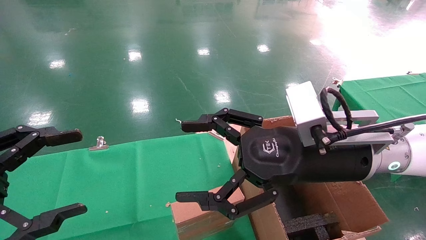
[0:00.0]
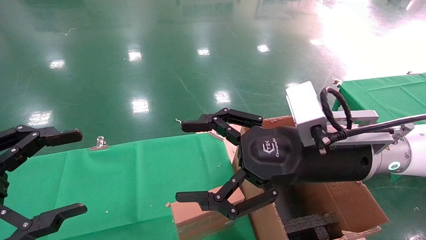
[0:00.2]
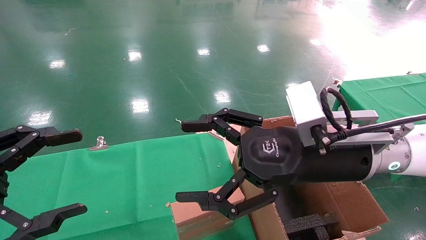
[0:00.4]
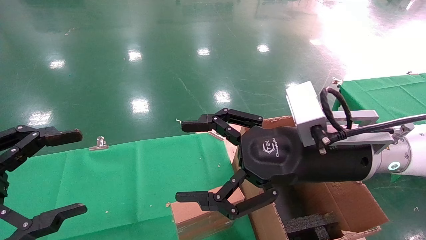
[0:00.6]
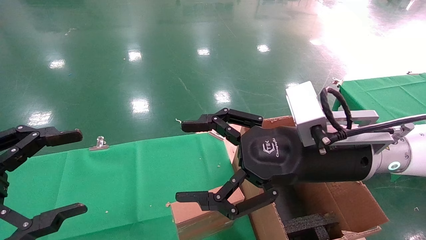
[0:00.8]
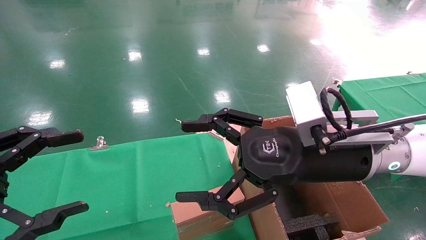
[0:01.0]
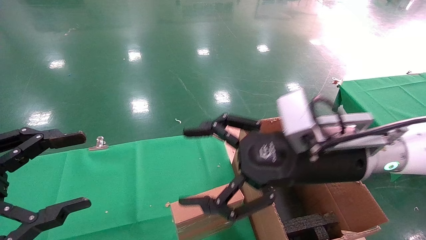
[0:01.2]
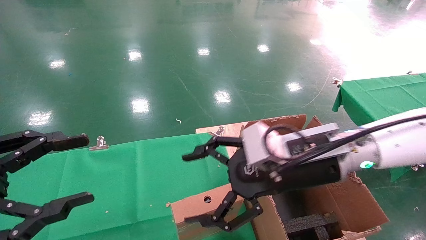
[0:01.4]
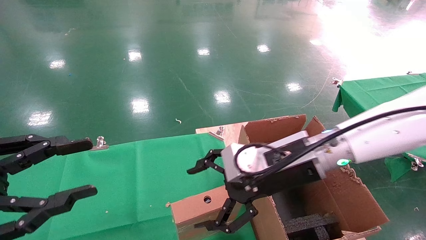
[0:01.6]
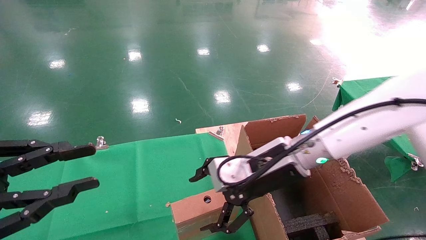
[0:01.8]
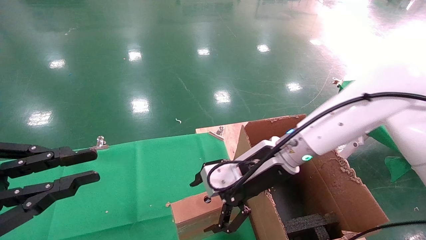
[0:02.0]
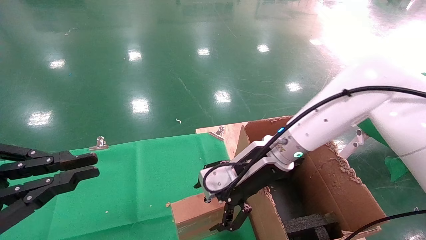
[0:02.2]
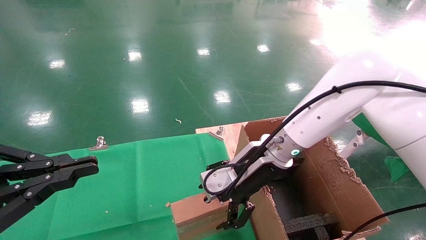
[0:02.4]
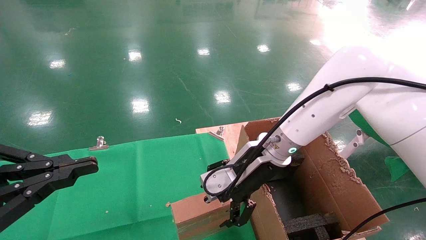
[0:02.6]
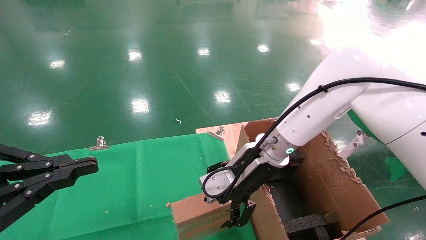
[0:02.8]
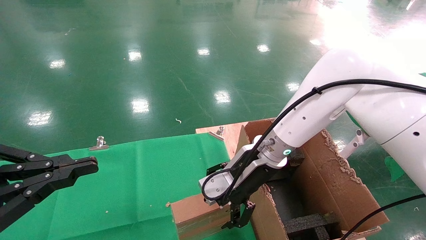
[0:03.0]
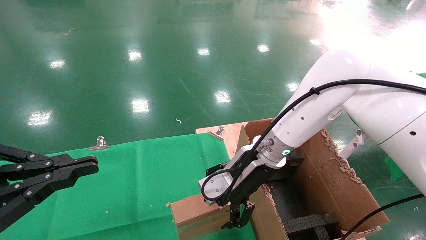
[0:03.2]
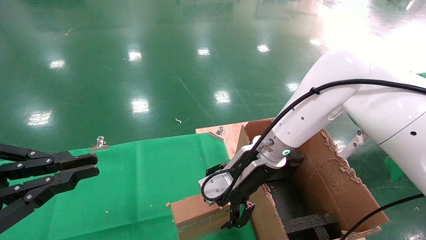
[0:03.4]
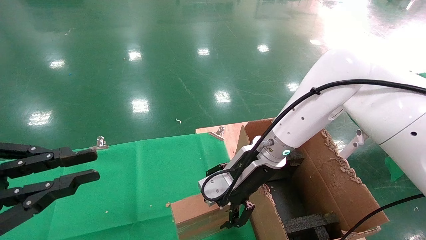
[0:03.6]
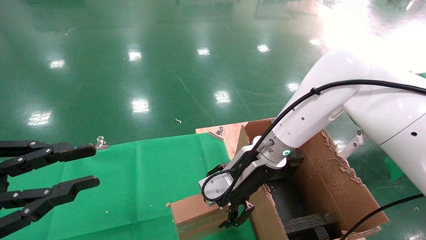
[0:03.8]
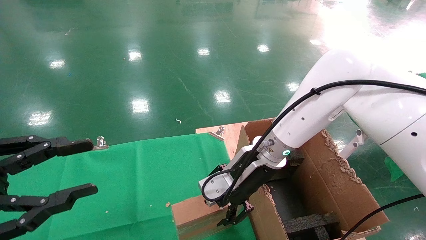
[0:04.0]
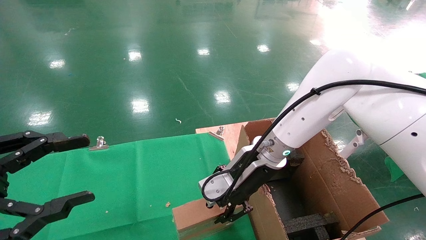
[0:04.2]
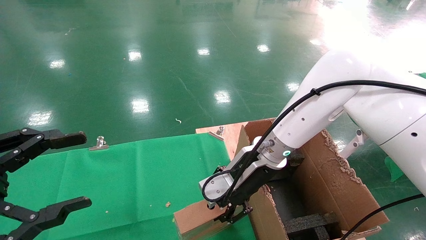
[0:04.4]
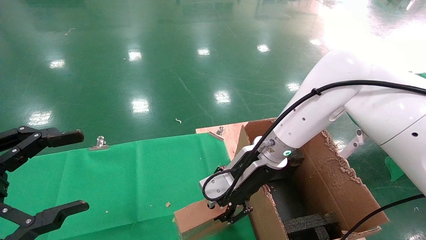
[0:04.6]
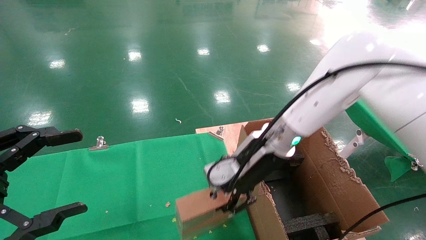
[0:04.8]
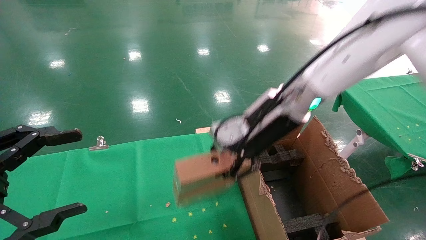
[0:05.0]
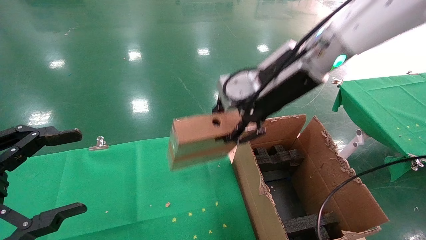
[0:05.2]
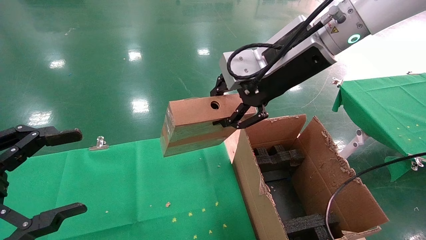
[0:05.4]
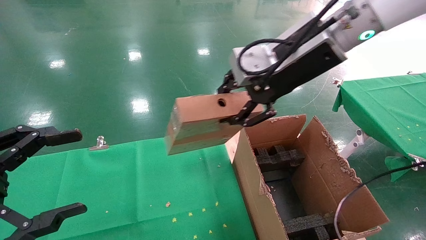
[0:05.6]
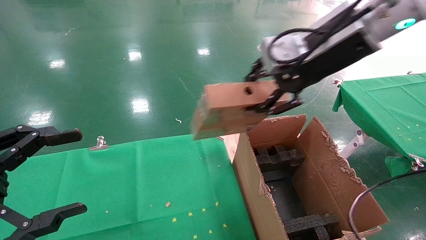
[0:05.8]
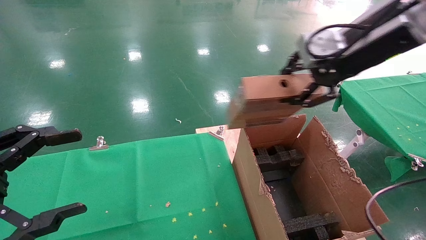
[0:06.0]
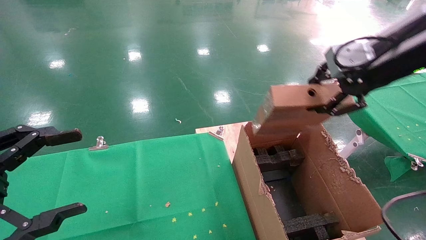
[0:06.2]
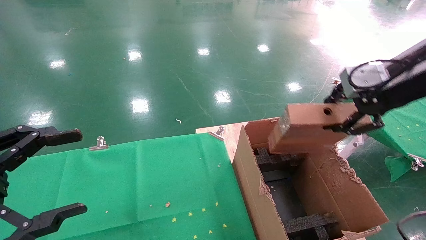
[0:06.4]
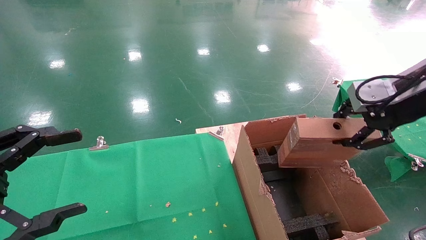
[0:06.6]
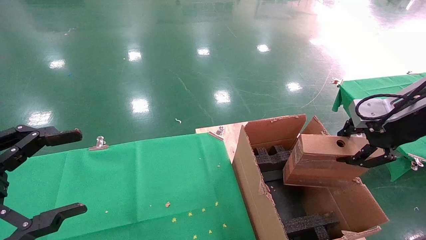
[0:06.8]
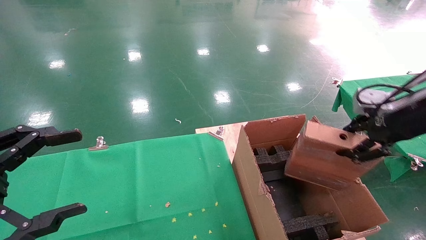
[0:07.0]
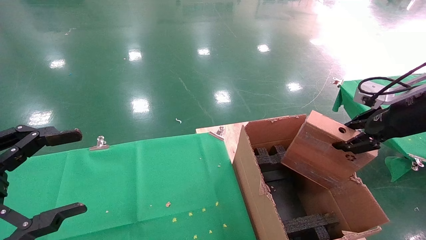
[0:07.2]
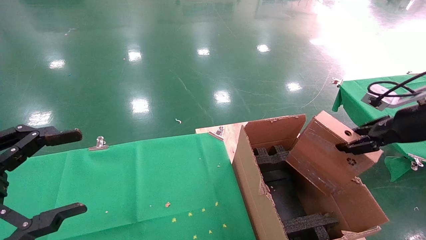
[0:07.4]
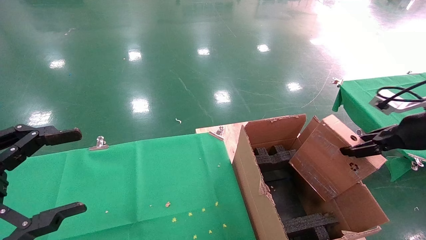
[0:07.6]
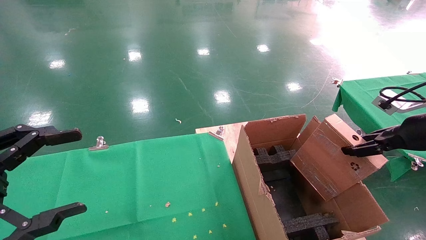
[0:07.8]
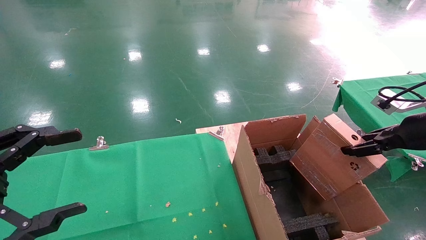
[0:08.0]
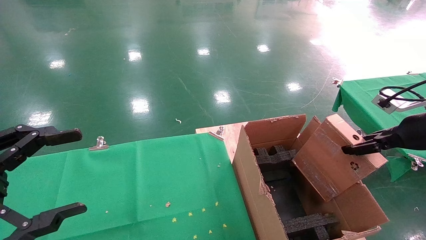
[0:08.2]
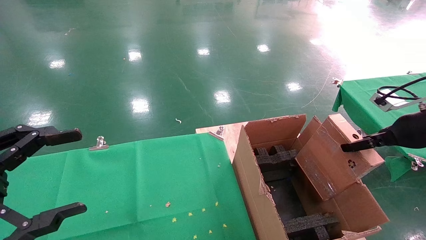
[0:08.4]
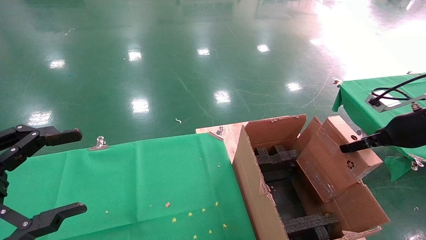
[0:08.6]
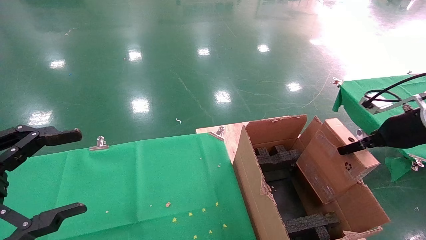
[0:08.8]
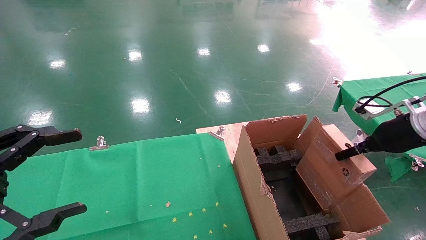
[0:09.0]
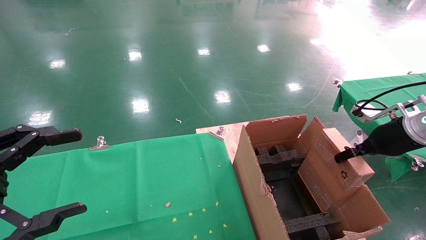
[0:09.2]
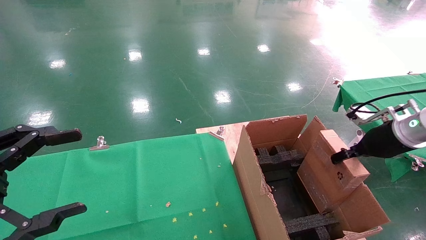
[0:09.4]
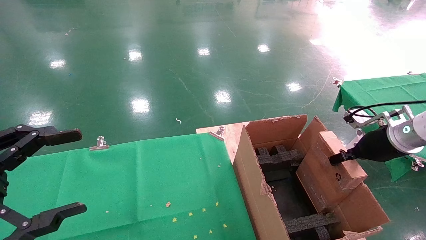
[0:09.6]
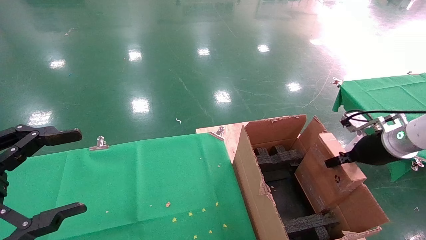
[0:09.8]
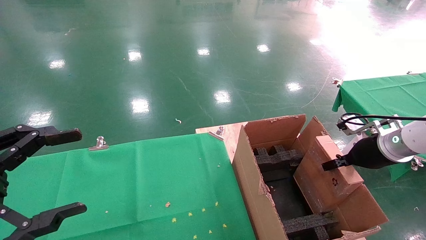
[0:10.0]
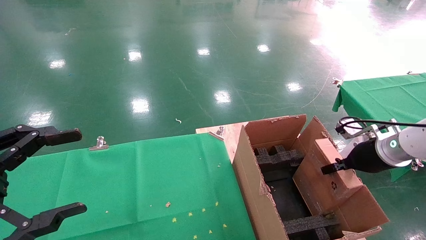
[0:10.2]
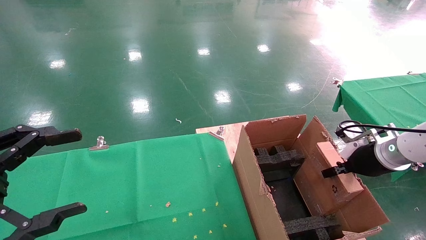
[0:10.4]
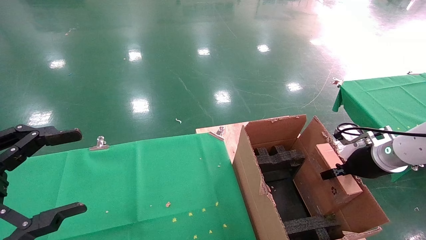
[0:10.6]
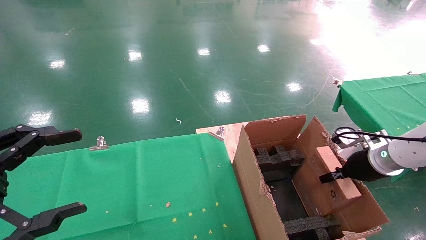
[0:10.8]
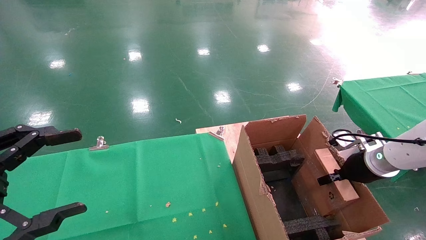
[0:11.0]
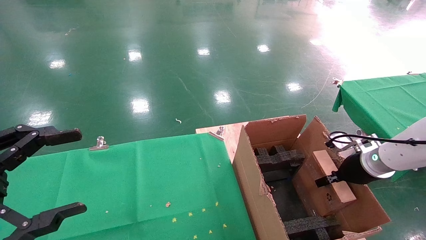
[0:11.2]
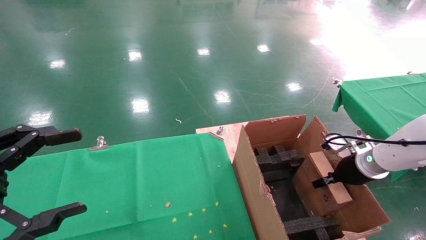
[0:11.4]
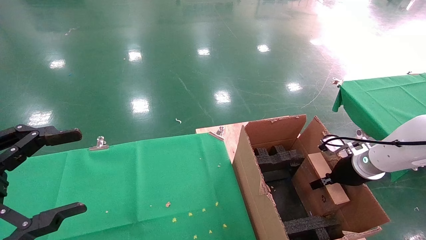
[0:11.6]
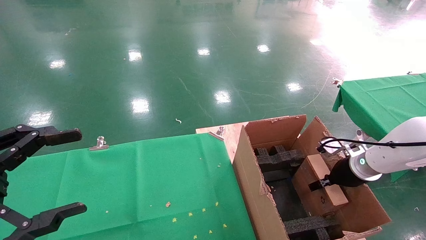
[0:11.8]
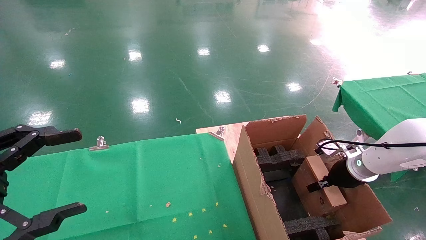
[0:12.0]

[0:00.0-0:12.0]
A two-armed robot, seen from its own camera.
Task of the whole recording: using a robotic arm to pick up a cardboard box and palace it the carton.
Step, 0:01.2 to 0:04.6: Pick up the mouse and the power cord paper box.
0:00.0 to 0:01.6: The left gripper closes up. The right gripper travels forward by roughly 5 cm.
0:01.6 to 0:03.0: The right gripper is displaced forward by some 5 cm, while the left gripper closes its fingers.
0:03.0 to 0:04.4: The left gripper opens up. Meanwhile the right gripper closes its fingers.
0:04.4 to 0:06.0: The right gripper goes roughly 25 cm upward and to the right.
0:06.0 to 0:07.6: The right gripper goes approximately 25 cm to the right and downward.
0:07.6 to 0:09.0: The right gripper ends up some 5 cm from where it was.
0:09.0 to 0:10.4: The right gripper goes approximately 5 cm downward.
0:10.4 to 0:12.0: The right gripper shifts some 5 cm downward.

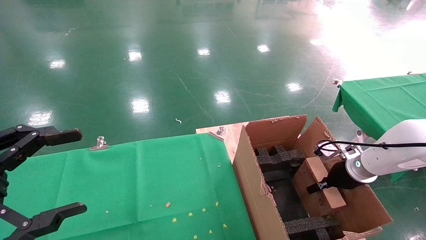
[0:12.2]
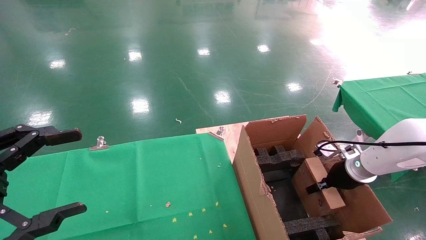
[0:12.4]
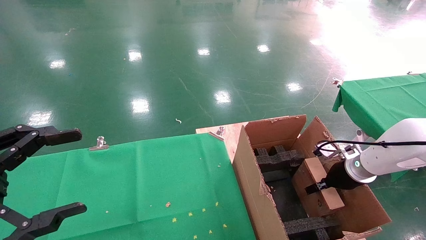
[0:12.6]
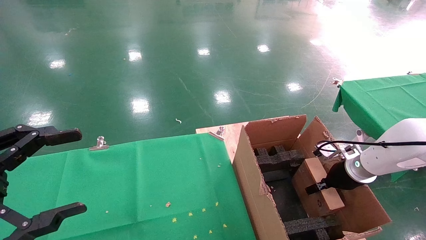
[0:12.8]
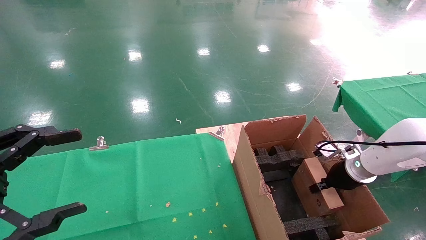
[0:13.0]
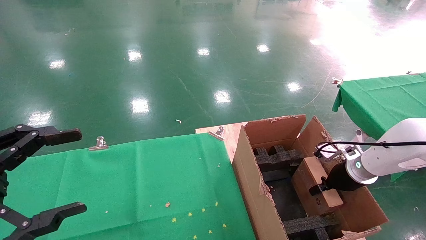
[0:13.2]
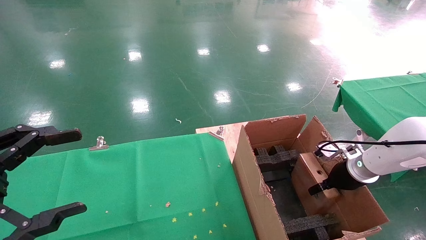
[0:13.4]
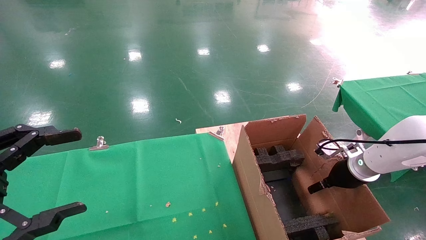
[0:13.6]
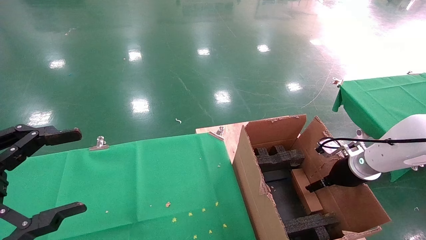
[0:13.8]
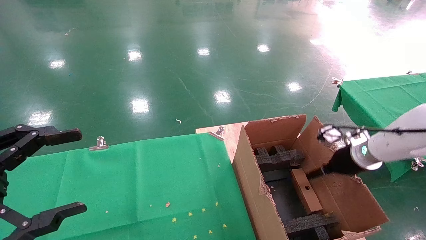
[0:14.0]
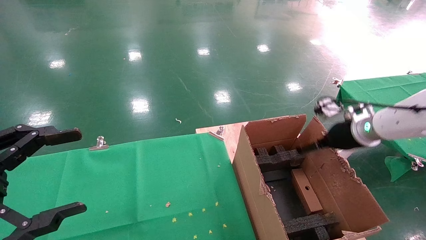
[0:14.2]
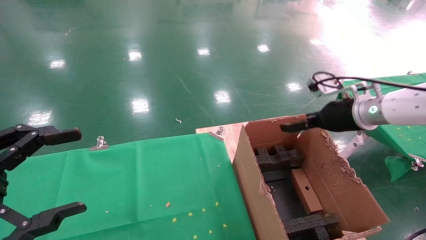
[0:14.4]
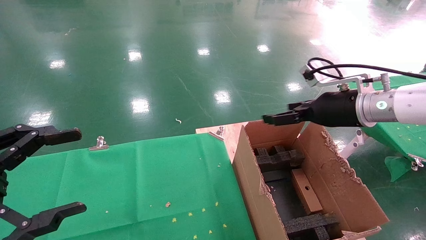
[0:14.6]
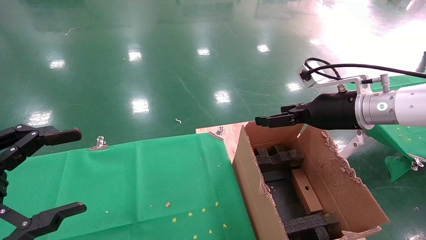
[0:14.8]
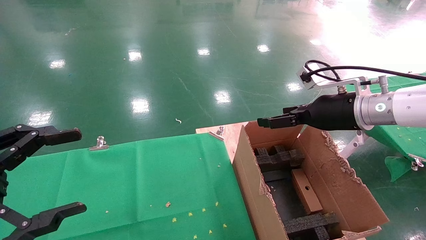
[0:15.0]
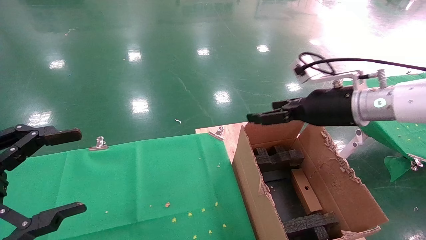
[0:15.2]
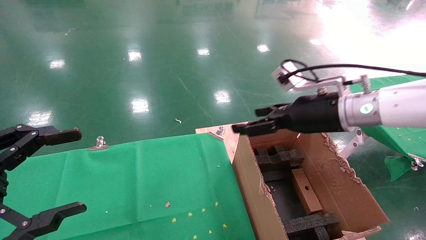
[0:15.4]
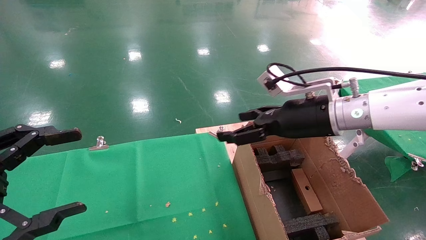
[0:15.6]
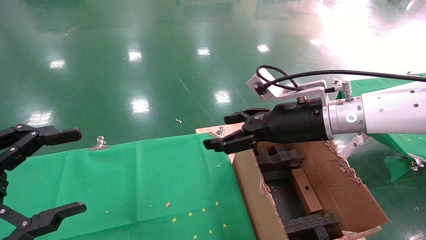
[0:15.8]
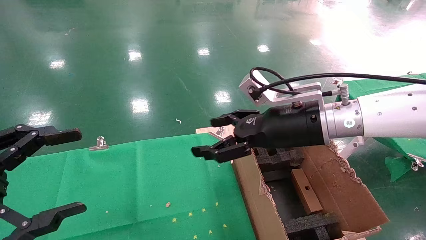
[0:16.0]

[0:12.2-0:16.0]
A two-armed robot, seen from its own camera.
Task of the whole recording: using a robotic arm to pick up a cardboard box and palace it the carton.
Step, 0:12.2 to 0:15.2: Place the mouse and the power cord paper box into the container.
0:12.2 to 0:13.4: The right gripper opens.
0:13.4 to 0:14.8: The right gripper shifts roughly 20 cm upward and to the left, and opens.
0:14.8 to 0:16.0: The right gripper moves to the left, some 10 cm.

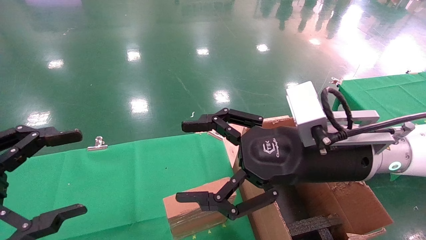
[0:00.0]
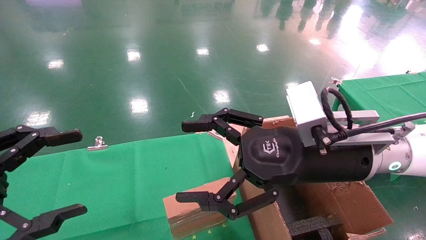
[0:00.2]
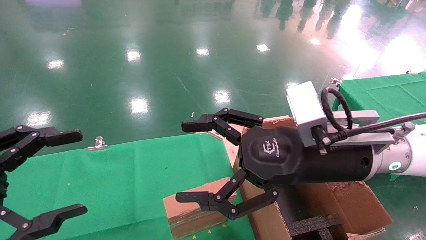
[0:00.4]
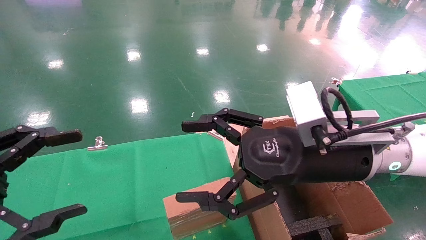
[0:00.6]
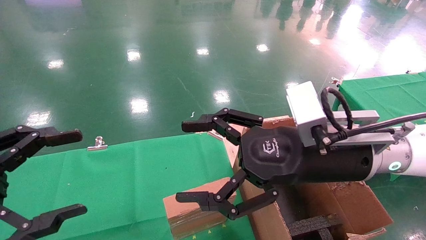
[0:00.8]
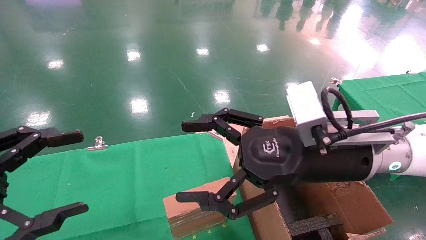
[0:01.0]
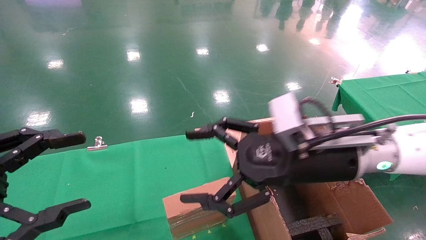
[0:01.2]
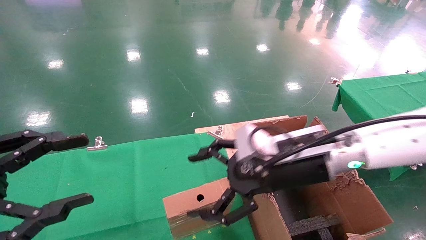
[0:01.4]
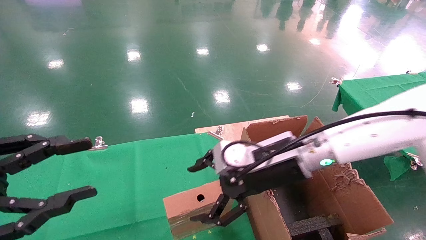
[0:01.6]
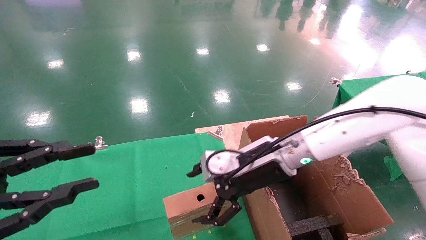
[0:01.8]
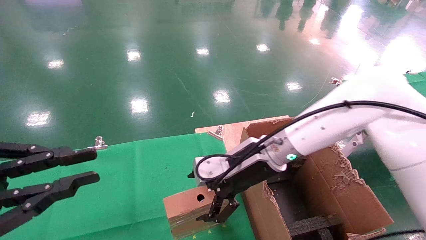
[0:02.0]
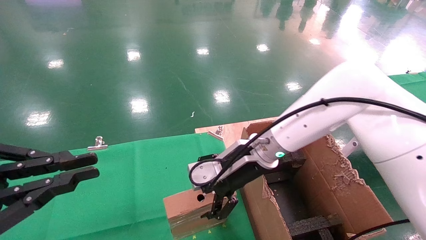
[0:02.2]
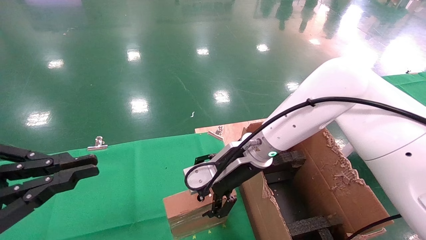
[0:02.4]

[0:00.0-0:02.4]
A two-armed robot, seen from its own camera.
Task of the whole recording: using a robotic arm to pick up a cardboard box and palace it the carton.
0:00.0 to 0:01.2: The grippers stay close to where they were, moving slightly.
0:01.2 to 0:02.4: The right gripper travels forward and to the left by roughly 15 cm, while the left gripper closes up.
